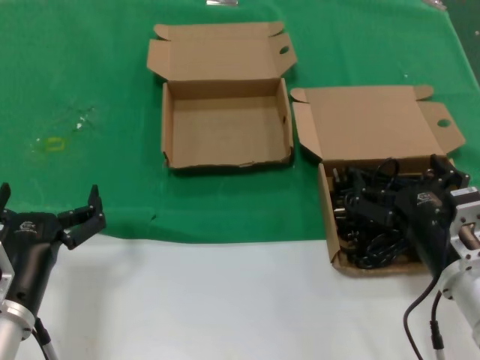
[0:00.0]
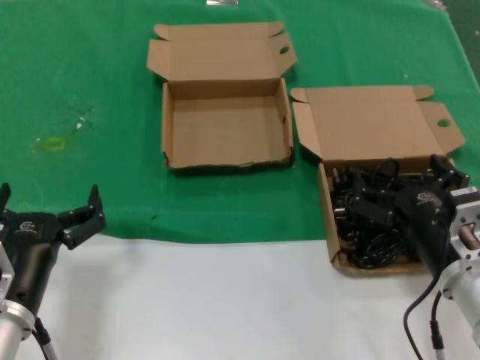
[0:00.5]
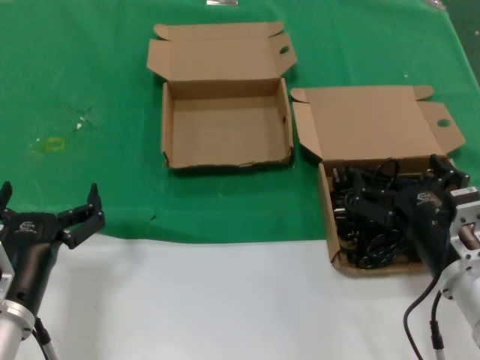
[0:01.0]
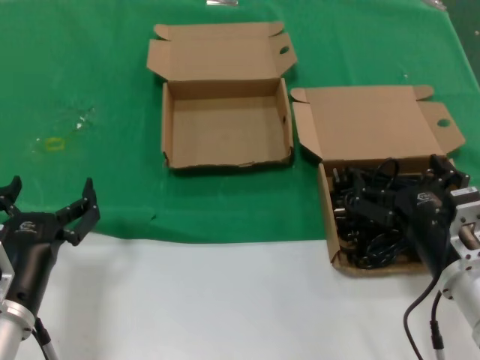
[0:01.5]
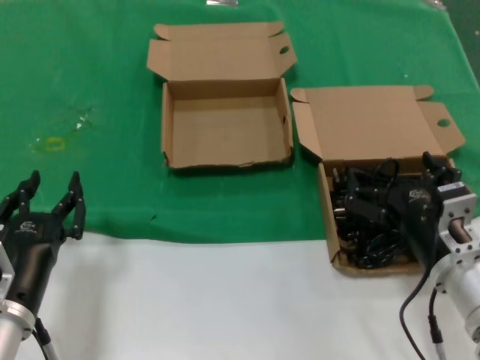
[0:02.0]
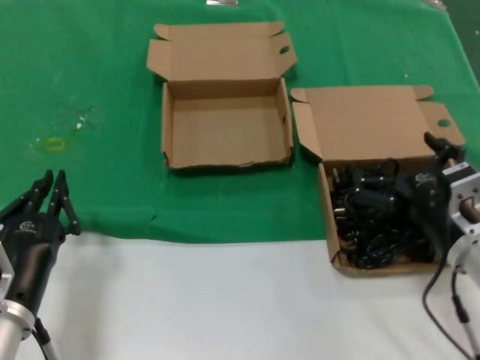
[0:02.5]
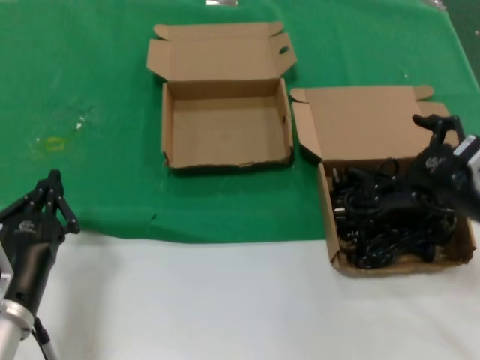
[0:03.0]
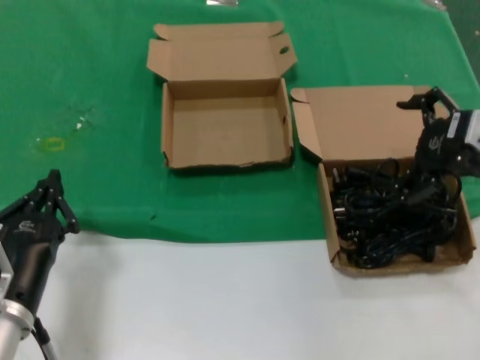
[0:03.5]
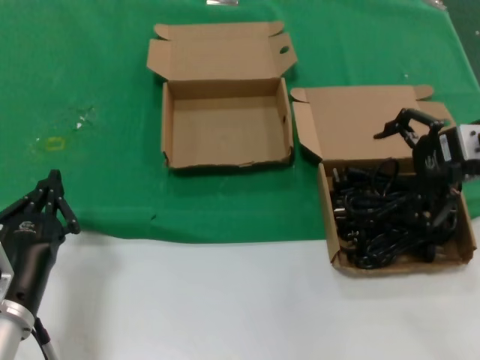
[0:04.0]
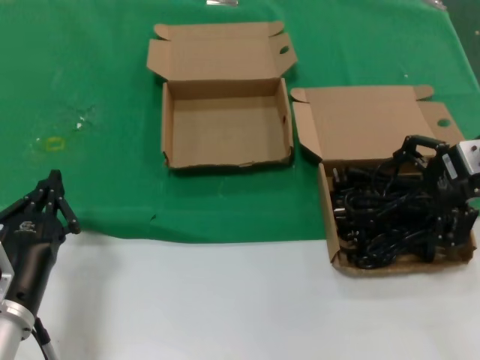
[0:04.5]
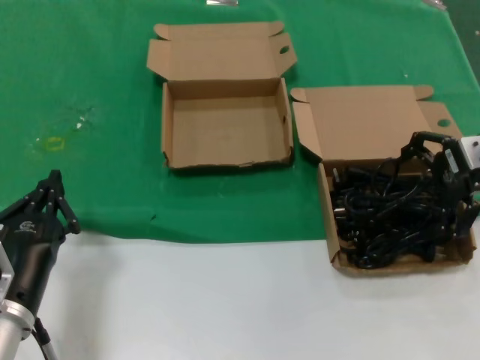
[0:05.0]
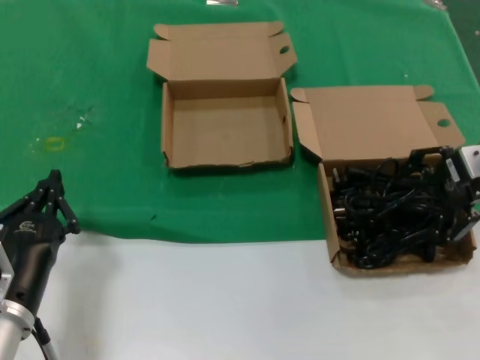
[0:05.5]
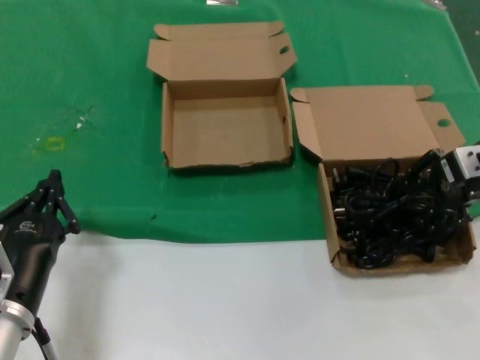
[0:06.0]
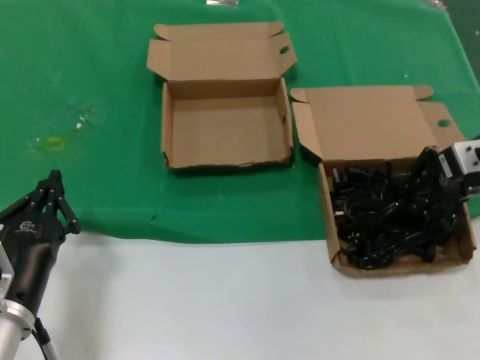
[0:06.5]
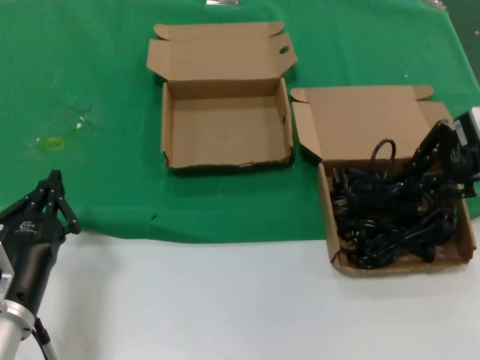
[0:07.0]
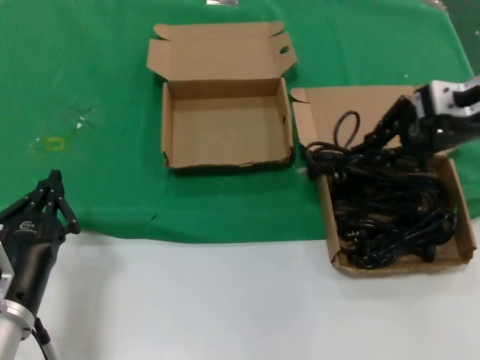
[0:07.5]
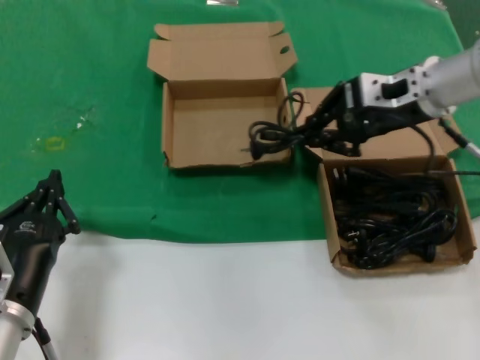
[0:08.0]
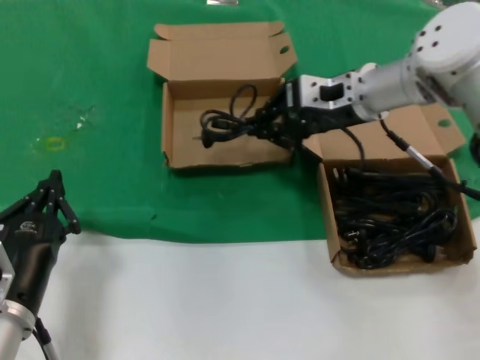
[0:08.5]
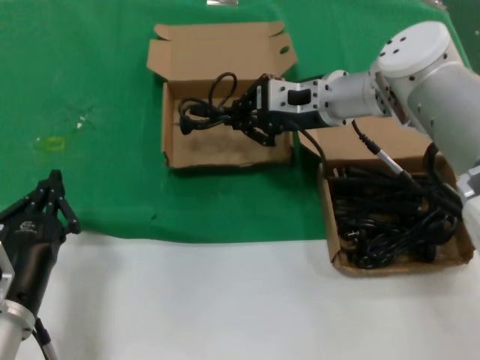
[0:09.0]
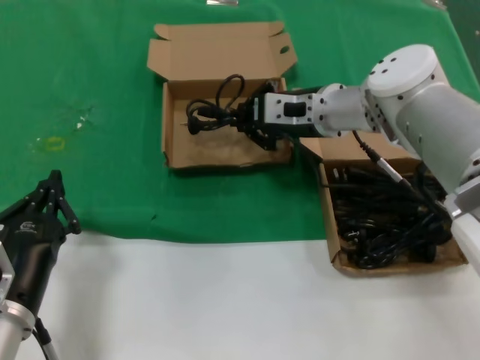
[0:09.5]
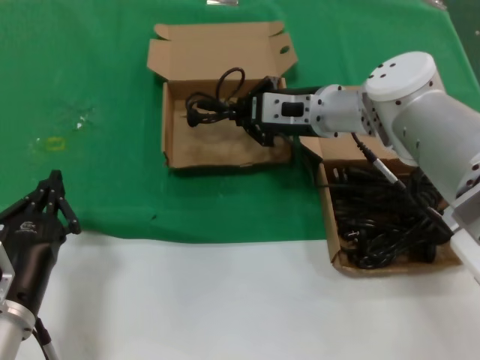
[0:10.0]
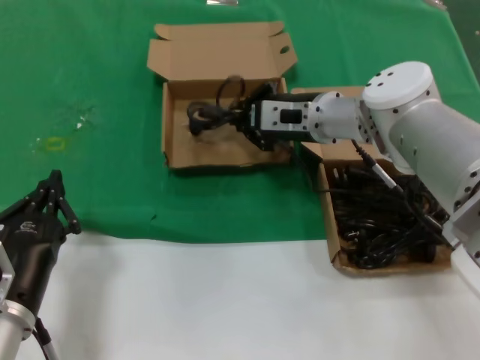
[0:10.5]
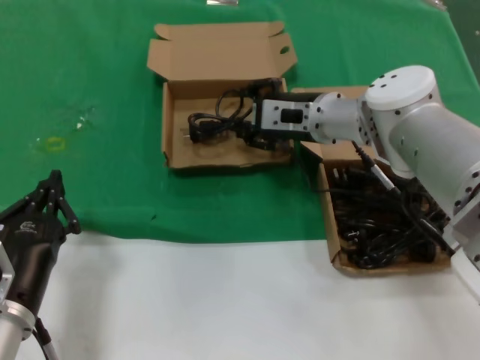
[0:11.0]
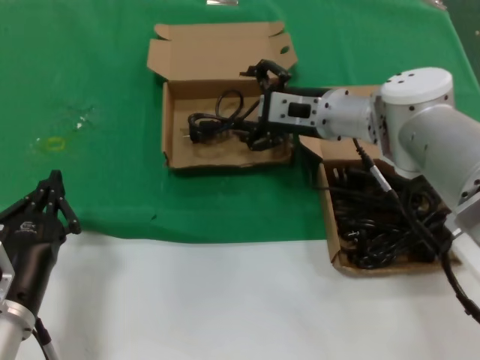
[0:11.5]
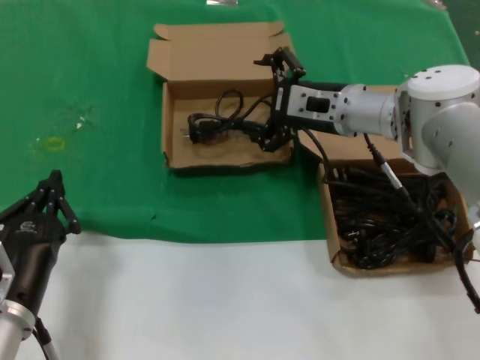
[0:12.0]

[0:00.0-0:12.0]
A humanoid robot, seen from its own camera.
Task of the whole recording: take the parts from the box containing them and put them into an empty box.
Step, 0:00.0 to 0:06.0: Grasp the data cable.
Step, 0:06.5 to 0:10.5: Place the data cable in the another box.
0:00.0 to 0:02.0: Neither hand changes place.
0:02.0 to 0:04.0: The right hand moves upward, forward and to the right, roughly 25 cm.
0:04.0 to 0:06.0: The hands stay close to where they were, moving slightly.
0:06.0 to 0:08.0: The right hand goes approximately 10 cm to the left.
0:08.0 to 0:10.0: The right hand is displaced to the left and downward by about 15 cm.
0:10.0 to 0:12.0: The hands stay close to where they were, moving slightly.

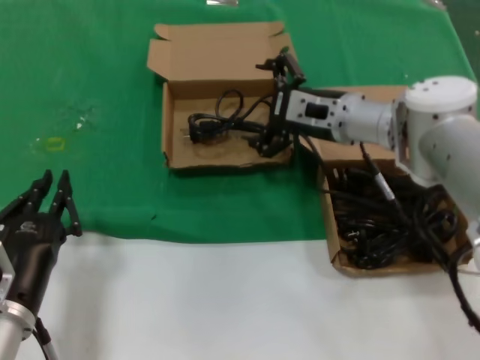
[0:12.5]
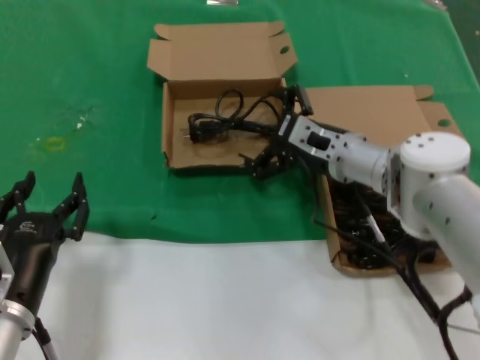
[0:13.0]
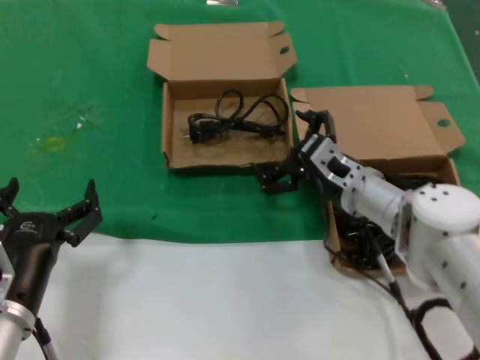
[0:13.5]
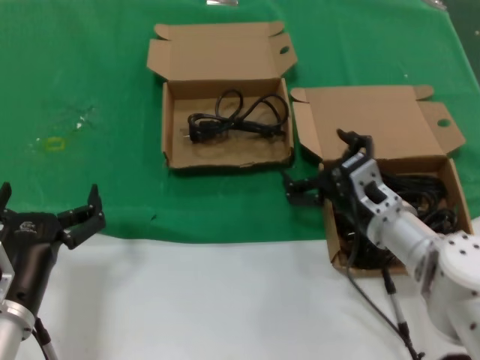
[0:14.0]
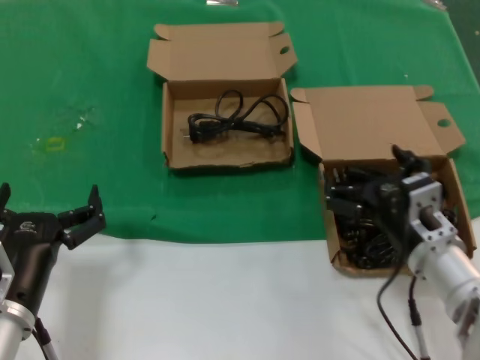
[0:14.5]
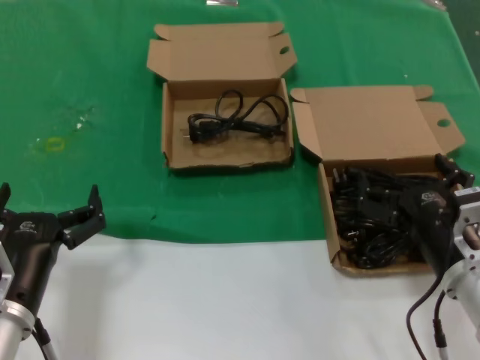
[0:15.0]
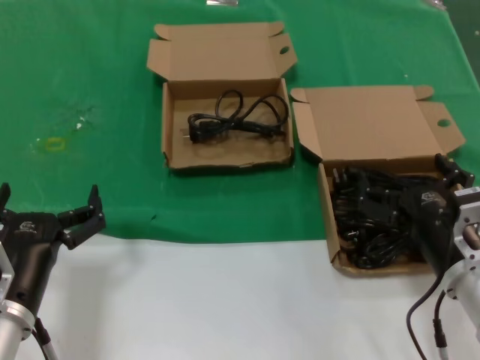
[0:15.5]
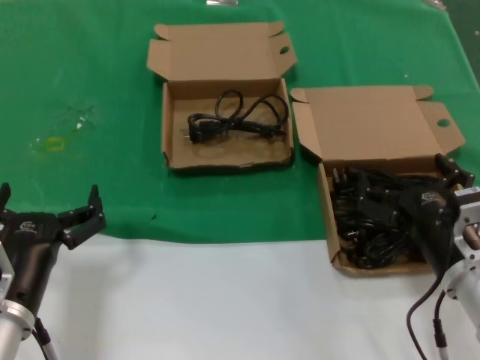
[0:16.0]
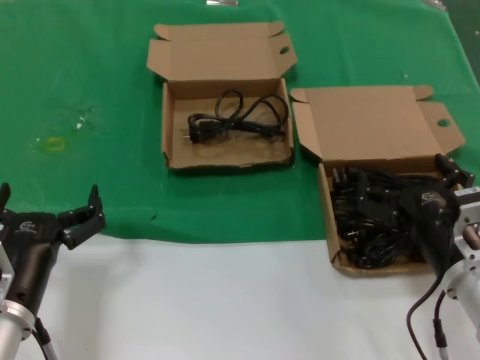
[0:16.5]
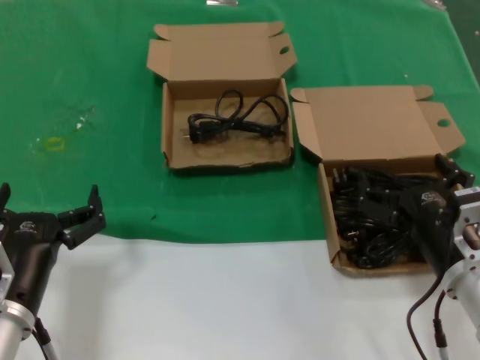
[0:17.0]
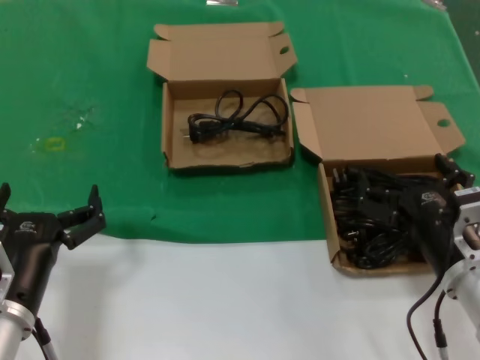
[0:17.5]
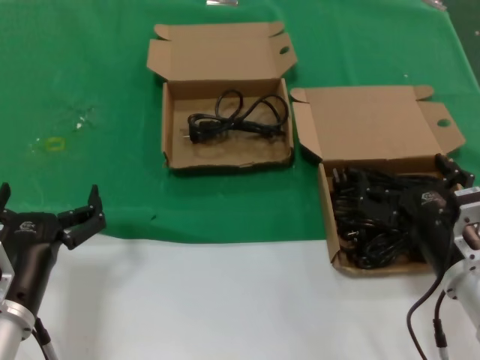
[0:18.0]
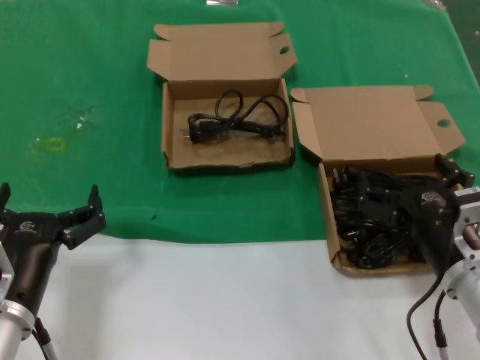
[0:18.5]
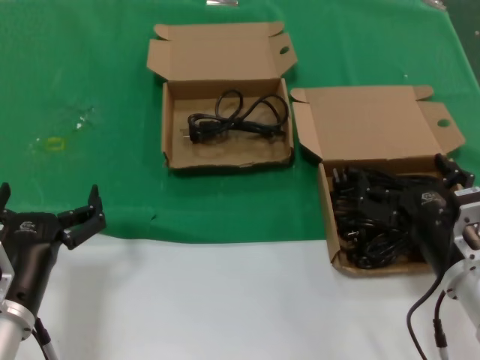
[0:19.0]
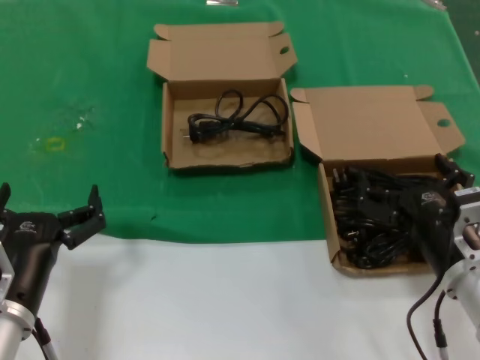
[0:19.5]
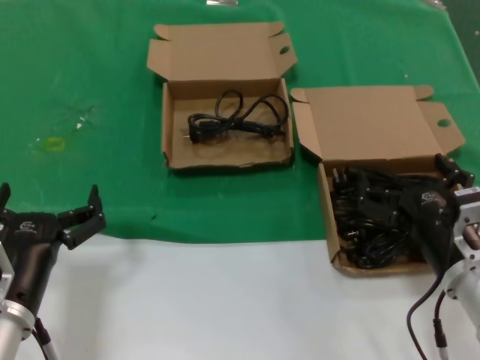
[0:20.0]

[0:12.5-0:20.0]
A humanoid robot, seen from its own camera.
Task of the whole recording: take the parts from the box containing them and put them into an empty box.
0:12.5 to 0:14.5: The right hand heads backward and downward, covering about 25 cm.
0:14.5 to 0:16.5: The right hand is displaced backward by approximately 5 cm.
0:16.5 to 0:20.0: Both hands stay put.
